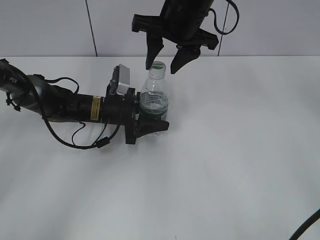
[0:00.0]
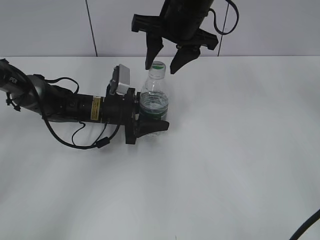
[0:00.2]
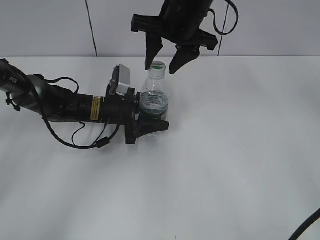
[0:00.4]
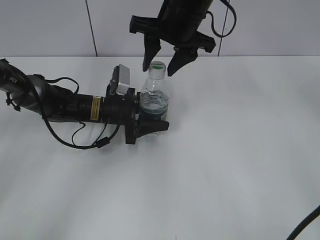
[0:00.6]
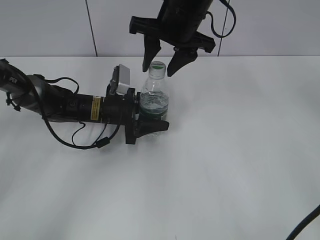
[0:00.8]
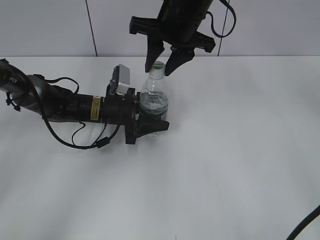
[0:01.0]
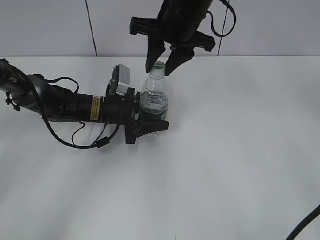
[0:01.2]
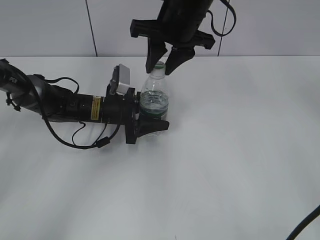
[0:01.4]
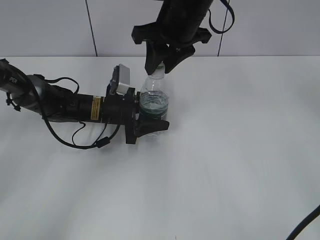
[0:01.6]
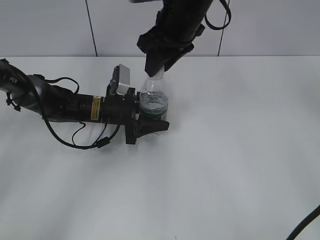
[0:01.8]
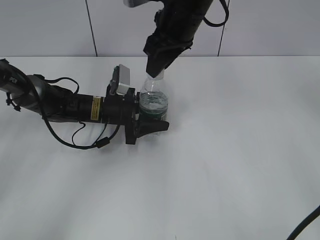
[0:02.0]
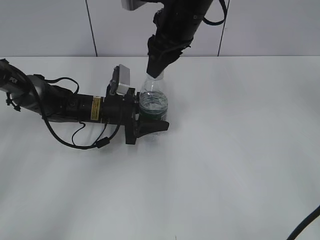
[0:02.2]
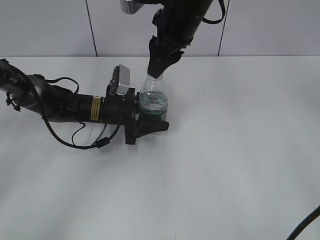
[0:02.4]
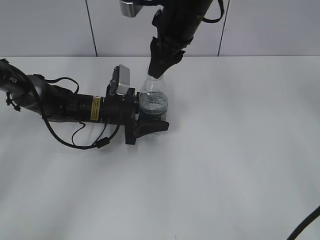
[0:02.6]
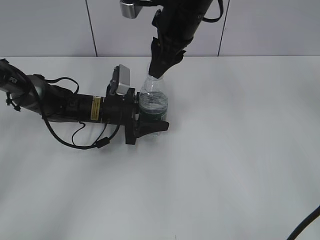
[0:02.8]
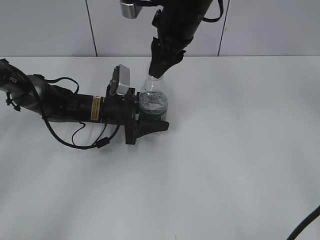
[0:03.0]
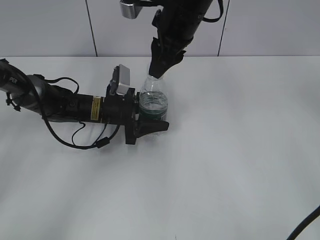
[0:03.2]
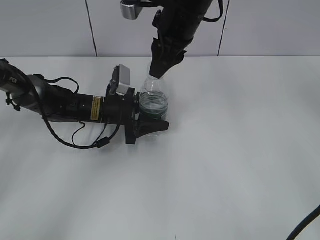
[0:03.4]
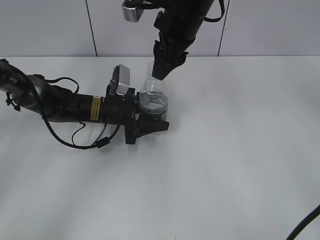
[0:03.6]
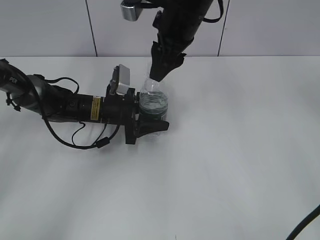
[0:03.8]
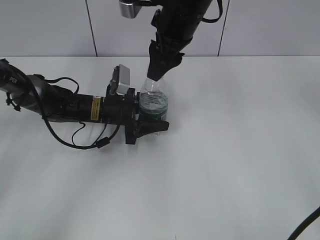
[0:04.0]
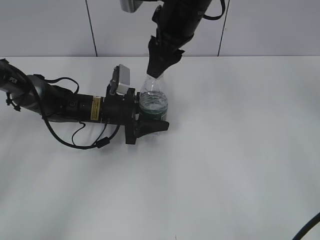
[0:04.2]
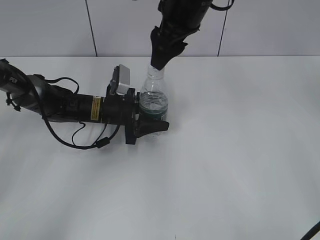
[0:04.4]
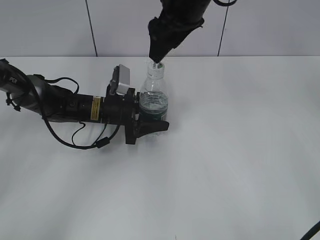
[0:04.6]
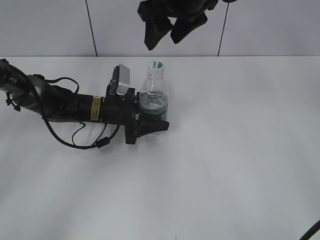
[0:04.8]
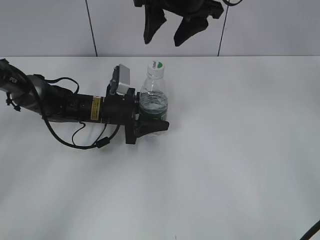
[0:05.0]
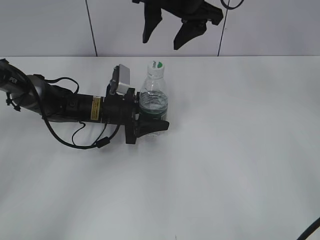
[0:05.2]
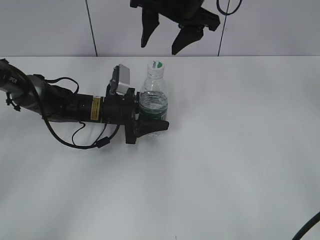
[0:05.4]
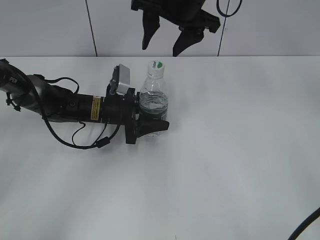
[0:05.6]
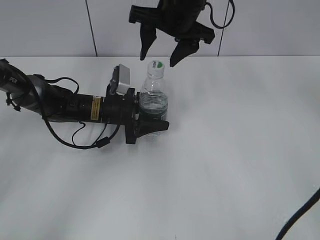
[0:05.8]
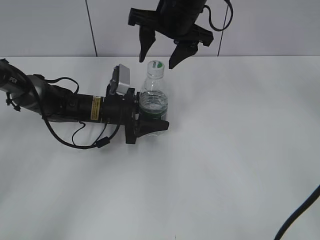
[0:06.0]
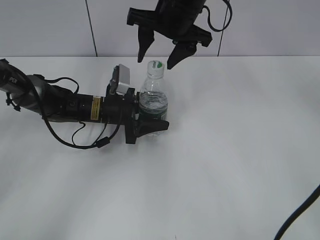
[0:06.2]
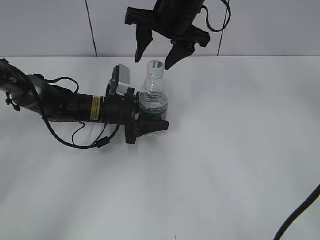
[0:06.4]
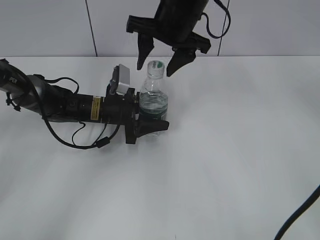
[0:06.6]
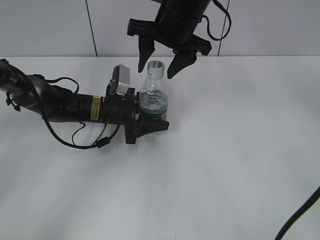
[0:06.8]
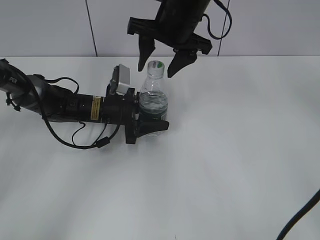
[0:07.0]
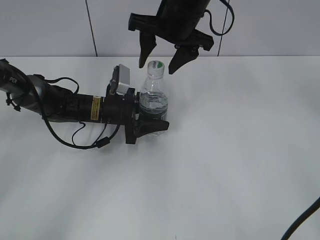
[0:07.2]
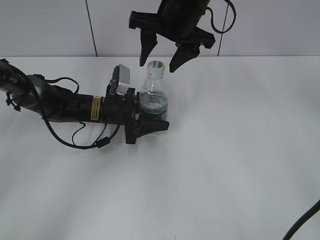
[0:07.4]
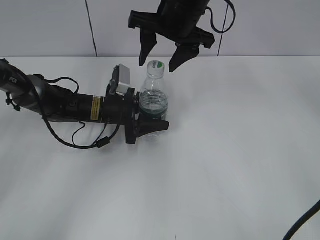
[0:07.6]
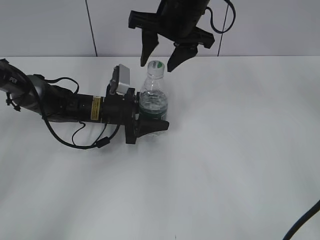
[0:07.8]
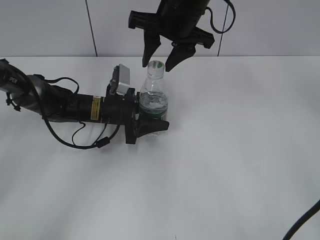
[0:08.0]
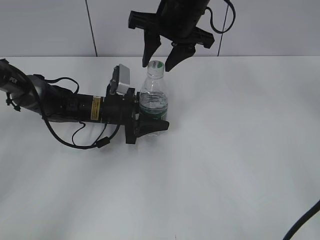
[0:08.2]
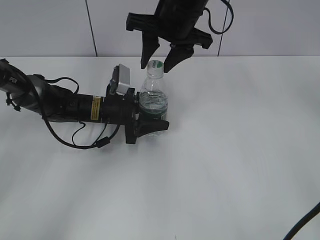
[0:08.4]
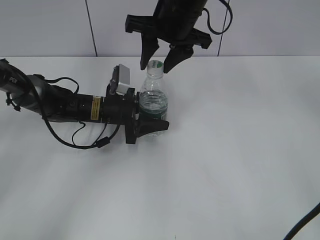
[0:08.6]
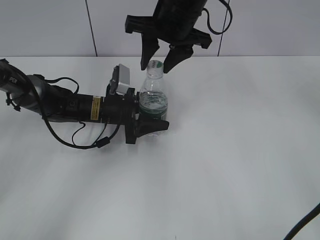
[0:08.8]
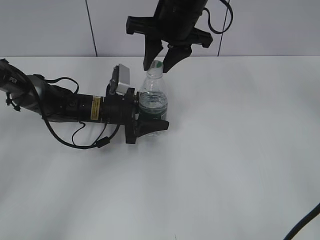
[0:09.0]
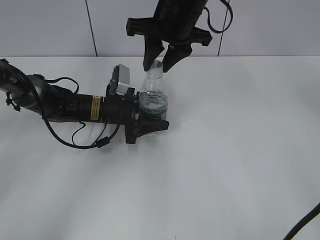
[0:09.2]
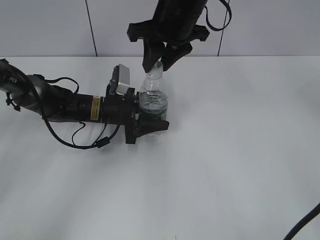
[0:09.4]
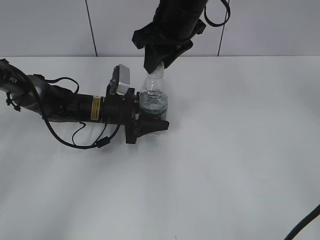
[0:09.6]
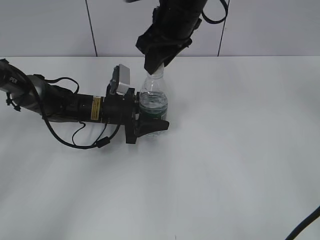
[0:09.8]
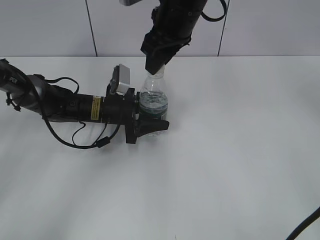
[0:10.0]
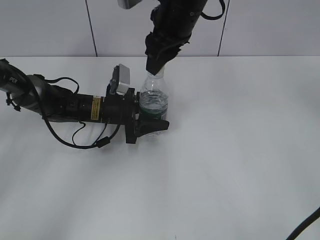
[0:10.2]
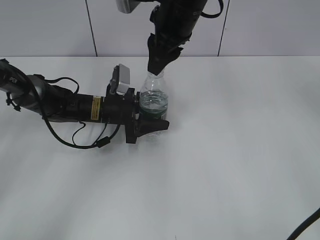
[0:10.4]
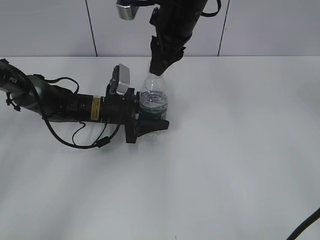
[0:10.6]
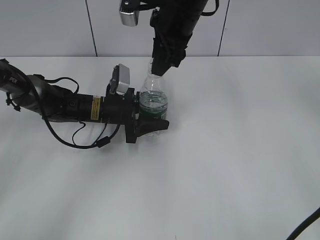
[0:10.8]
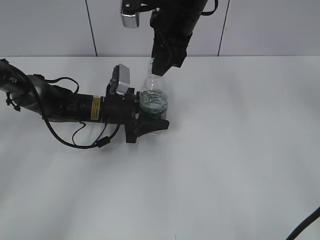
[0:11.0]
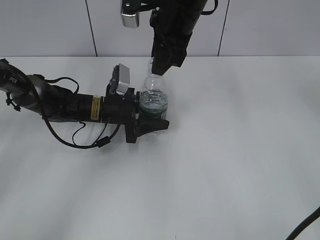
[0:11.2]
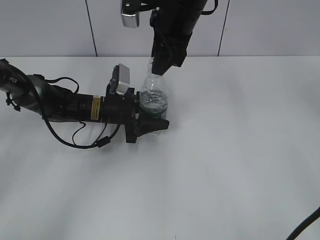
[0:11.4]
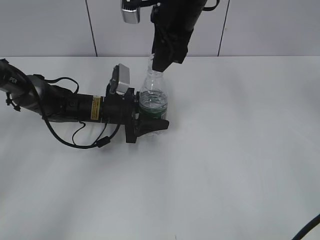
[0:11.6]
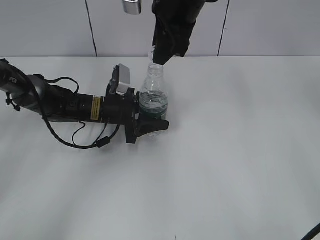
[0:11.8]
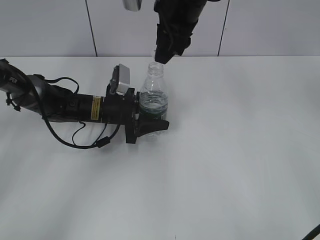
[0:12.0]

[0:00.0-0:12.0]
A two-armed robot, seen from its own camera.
Step, 0:00.0 to 0:12.0: Unscrew the bottle cap with the right gripper while holding the bottle with the left gripper.
0:00.0 to 0:01.6: The right gripper closes up.
0:03.0 to 0:04.4: The right gripper opens up.
0:06.0 to 0:07.6: Neither gripper changes place.
0:07.6 to 0:09.0: The right gripper closes up.

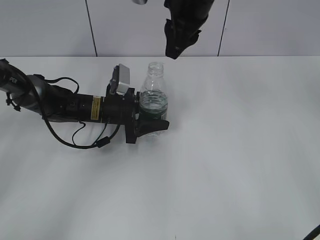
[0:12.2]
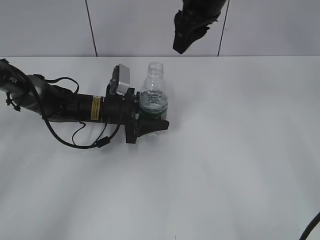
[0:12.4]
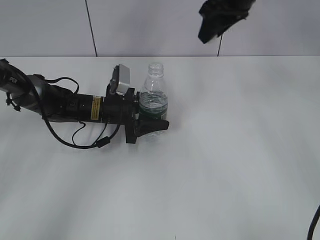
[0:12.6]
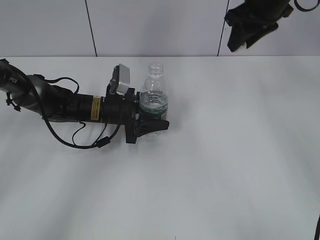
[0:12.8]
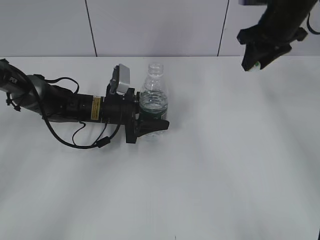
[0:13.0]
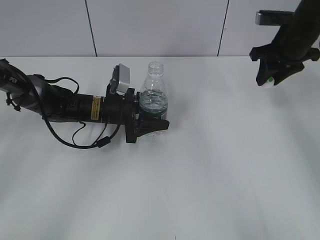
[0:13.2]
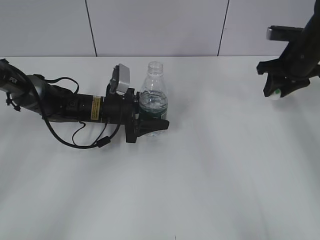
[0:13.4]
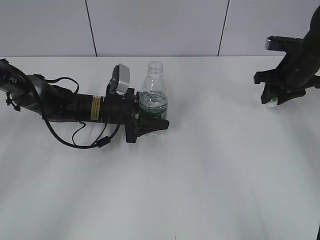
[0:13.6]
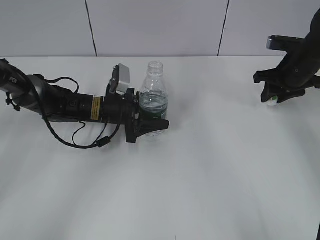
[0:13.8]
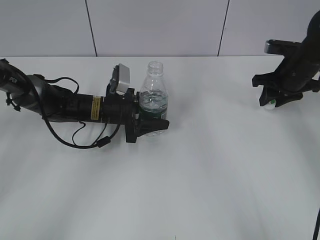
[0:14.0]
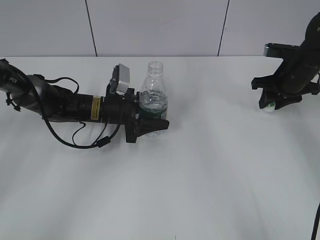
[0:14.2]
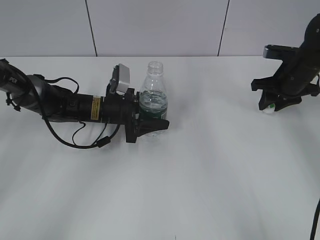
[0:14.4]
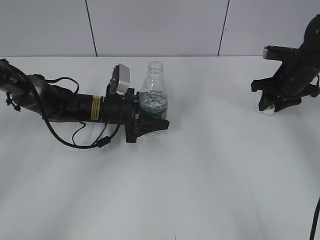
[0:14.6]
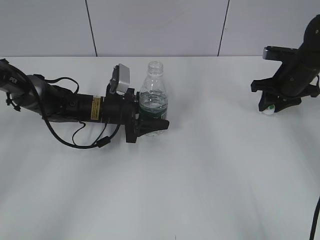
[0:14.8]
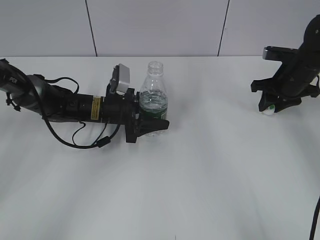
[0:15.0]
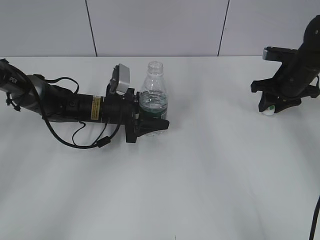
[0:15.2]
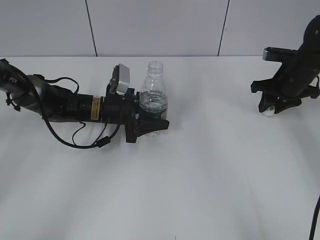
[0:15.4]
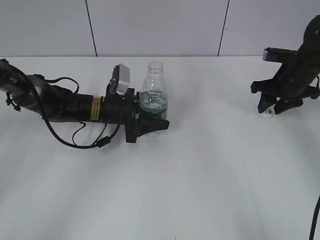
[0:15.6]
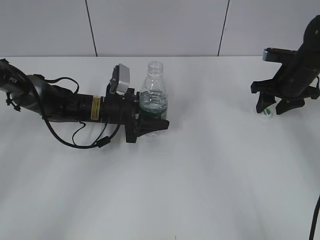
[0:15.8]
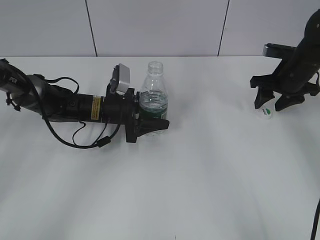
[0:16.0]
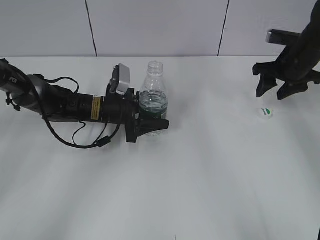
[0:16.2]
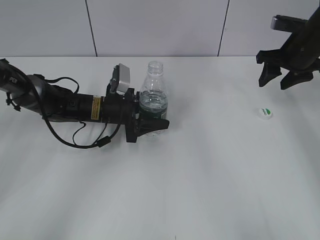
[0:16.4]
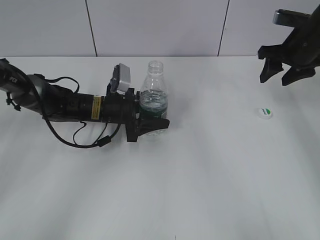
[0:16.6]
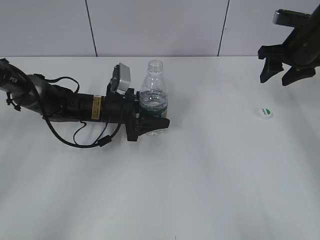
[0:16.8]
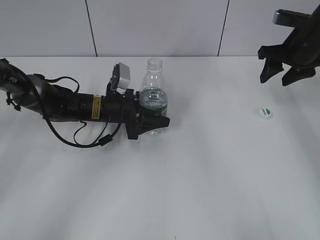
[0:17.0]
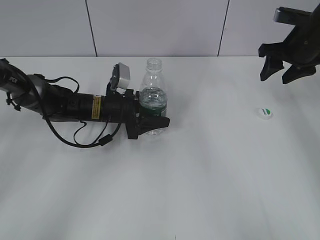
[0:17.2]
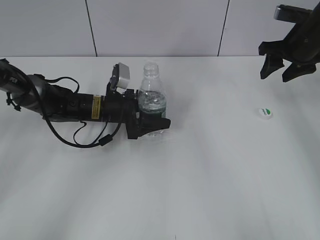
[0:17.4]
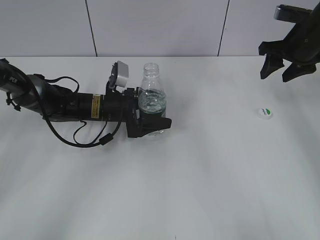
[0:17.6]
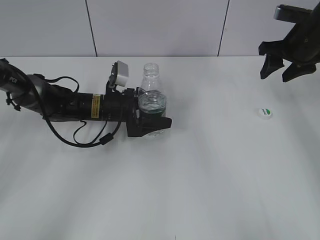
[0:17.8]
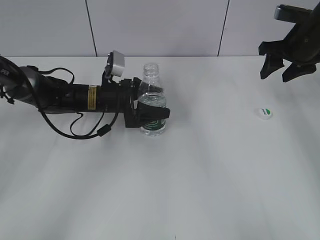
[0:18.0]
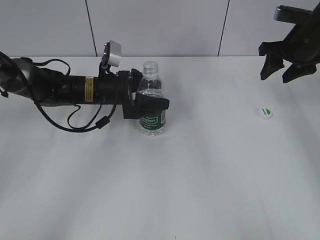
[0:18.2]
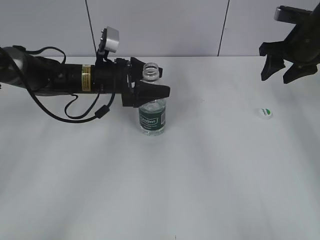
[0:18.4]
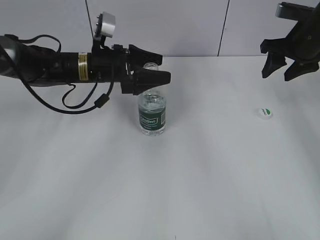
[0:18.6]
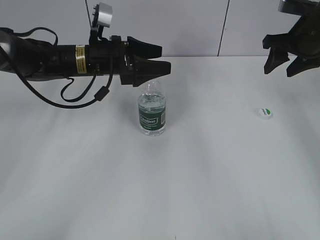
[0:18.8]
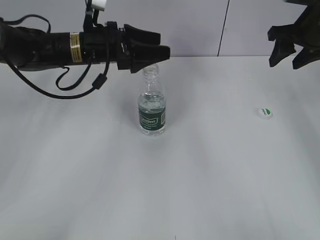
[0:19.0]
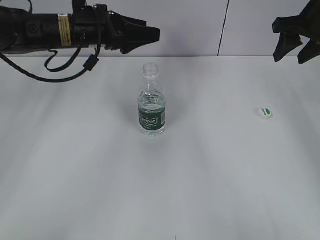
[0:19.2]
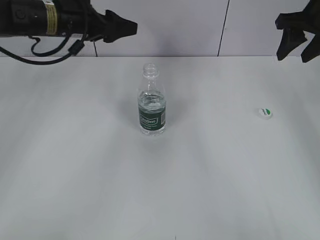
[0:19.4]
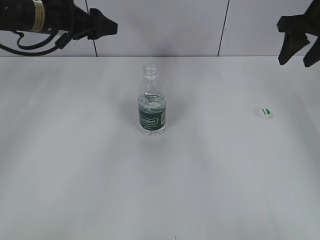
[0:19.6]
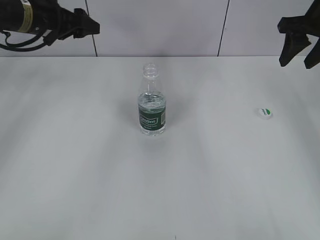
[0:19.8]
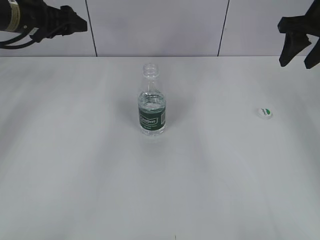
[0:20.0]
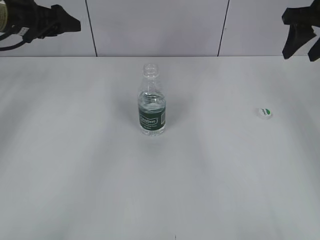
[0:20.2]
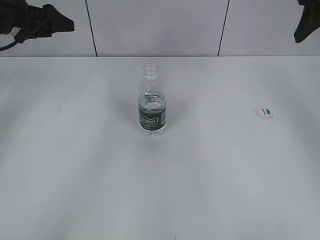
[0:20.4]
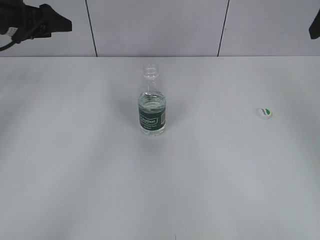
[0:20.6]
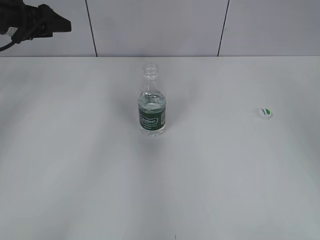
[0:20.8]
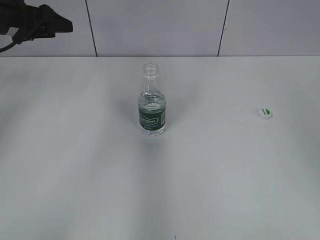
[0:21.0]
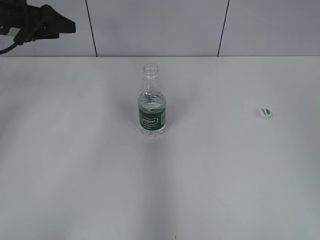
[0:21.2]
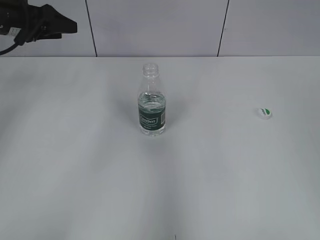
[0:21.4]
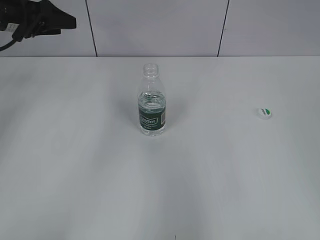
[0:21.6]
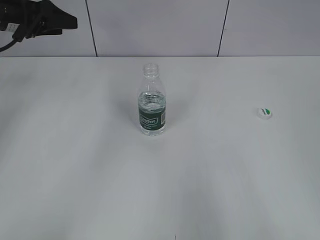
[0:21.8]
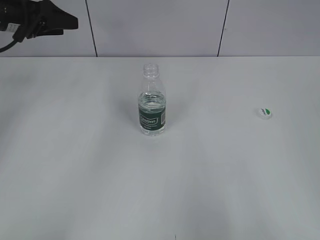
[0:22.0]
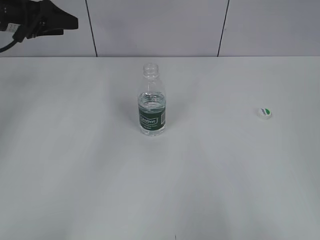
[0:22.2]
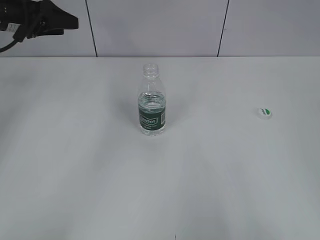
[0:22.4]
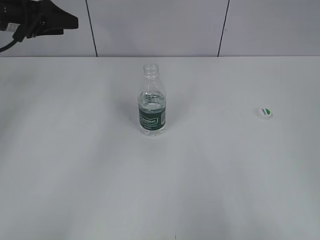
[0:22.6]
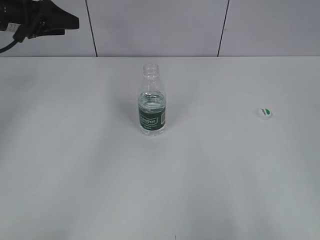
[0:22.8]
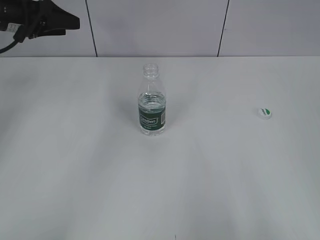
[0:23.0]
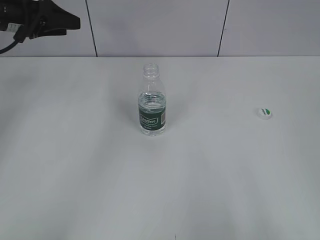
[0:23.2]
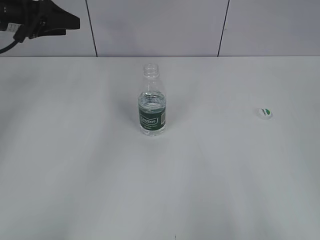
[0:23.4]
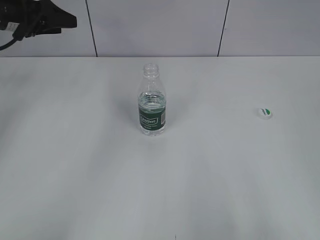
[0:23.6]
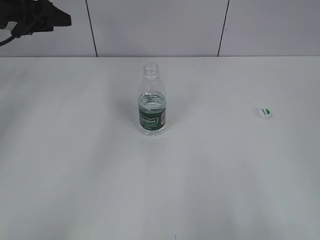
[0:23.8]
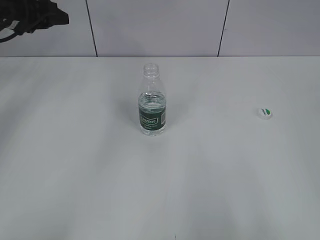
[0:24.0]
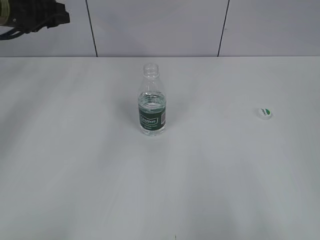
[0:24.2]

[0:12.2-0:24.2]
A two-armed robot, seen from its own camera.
Step, 0:12.2 to 0:16.0: Place the bottle cap on the table with the right gripper.
Step, 0:16.2 to 0:18.0: Place the bottle on the table with the left gripper.
0:12.2 to 0:13.8: The right gripper moves to the right and downward, about 30 cm.
0:13.8 to 0:15.2: The grippers move only a little.
0:15.2 to 0:16.6: The right gripper moves upward, approximately 5 cm, and opens up.
0:16.6 to 0:18.2: The left gripper opens its fingers.
0:18.2 to 0:19.8: The left gripper goes approximately 20 cm upward and to the left; the right gripper heads upward, covering about 5 cm.
0:19.8 to 0:21.2: The left gripper goes approximately 5 cm to the left, while the right gripper is displaced backward by roughly 25 cm.
0:21.2 to 0:22.6: The right gripper shifts approximately 20 cm backward and downward.
